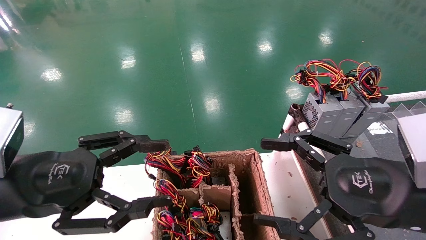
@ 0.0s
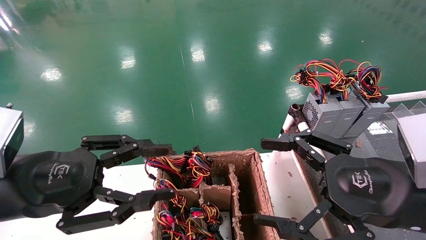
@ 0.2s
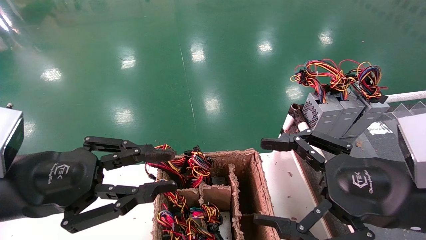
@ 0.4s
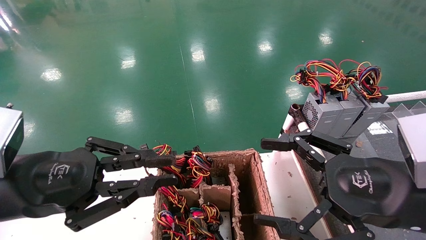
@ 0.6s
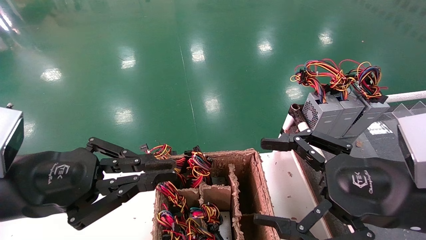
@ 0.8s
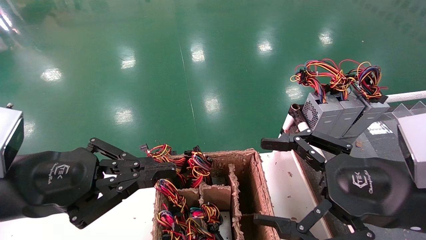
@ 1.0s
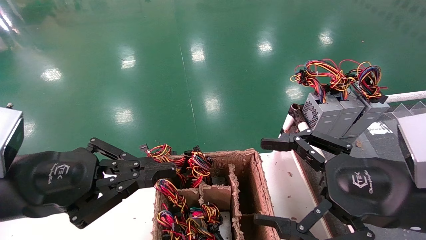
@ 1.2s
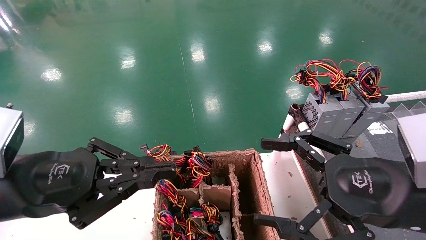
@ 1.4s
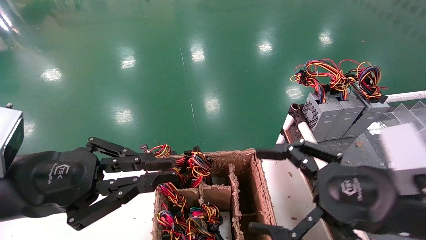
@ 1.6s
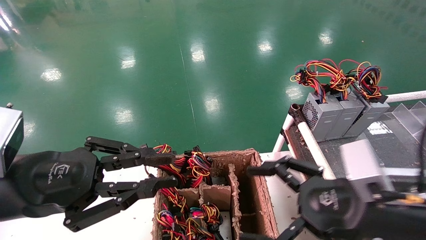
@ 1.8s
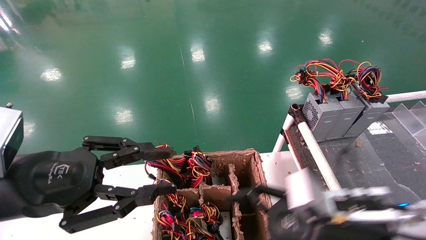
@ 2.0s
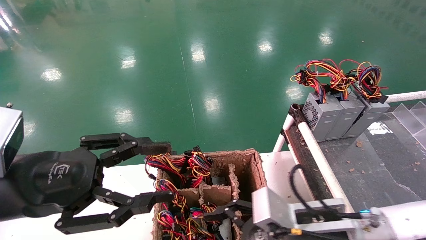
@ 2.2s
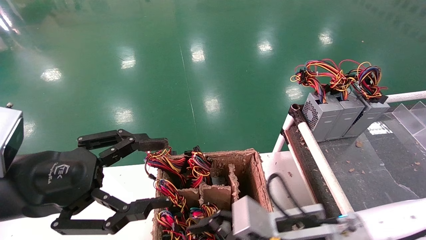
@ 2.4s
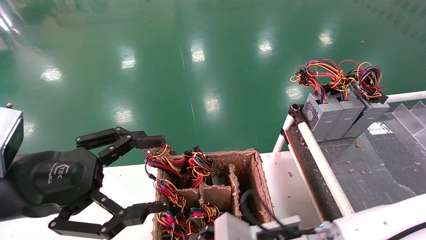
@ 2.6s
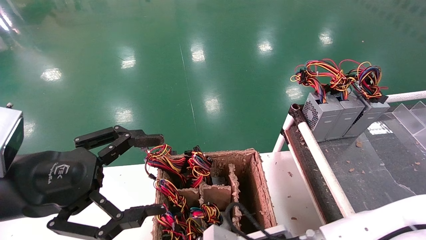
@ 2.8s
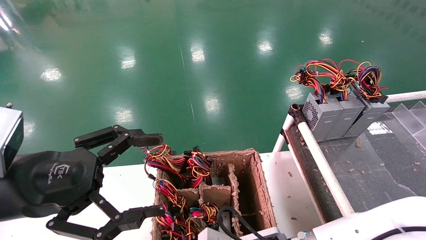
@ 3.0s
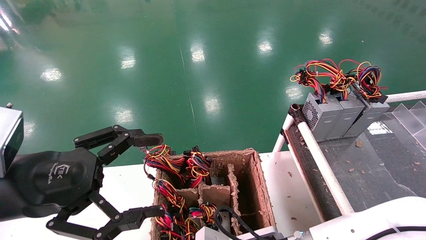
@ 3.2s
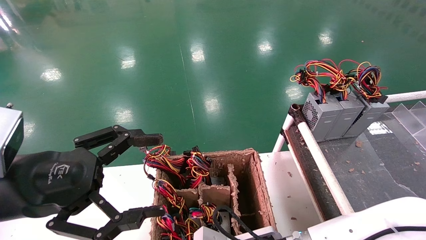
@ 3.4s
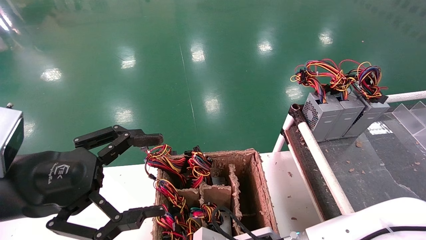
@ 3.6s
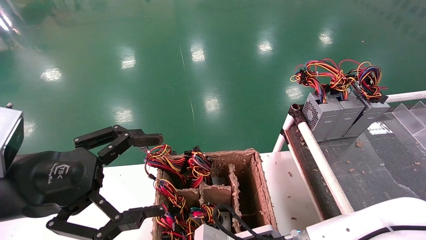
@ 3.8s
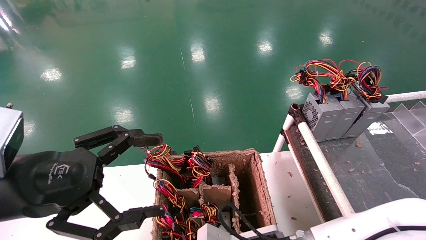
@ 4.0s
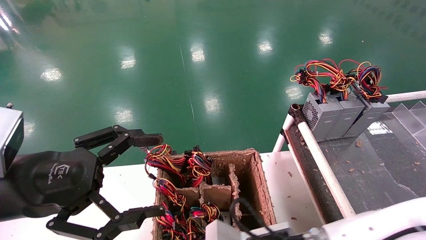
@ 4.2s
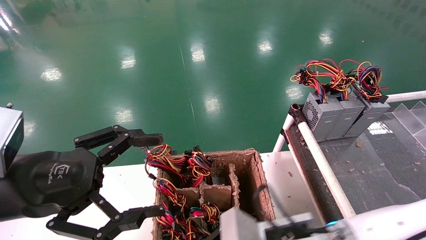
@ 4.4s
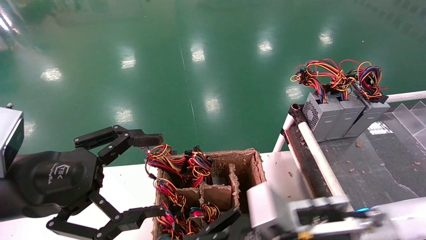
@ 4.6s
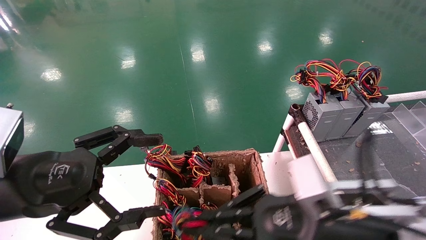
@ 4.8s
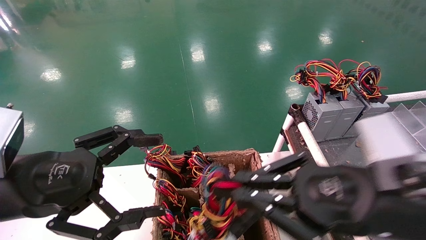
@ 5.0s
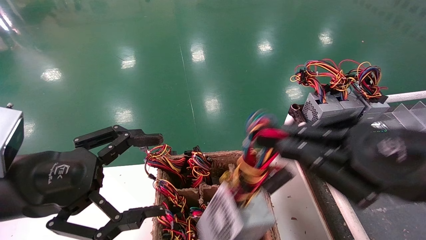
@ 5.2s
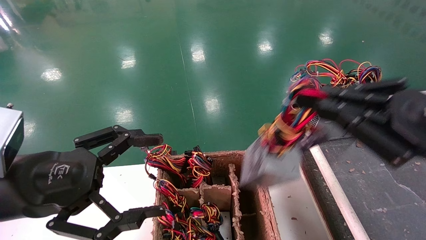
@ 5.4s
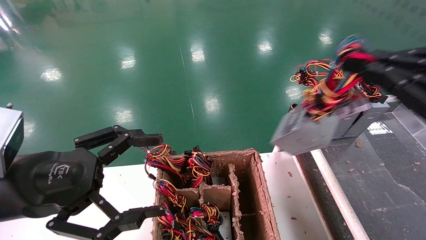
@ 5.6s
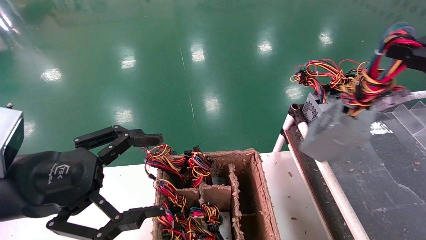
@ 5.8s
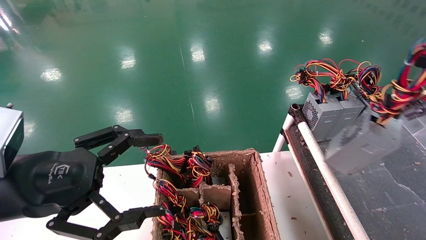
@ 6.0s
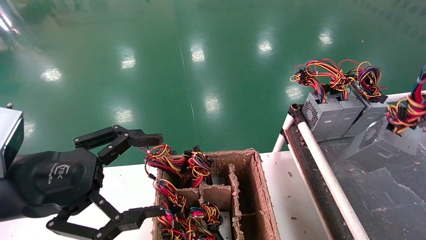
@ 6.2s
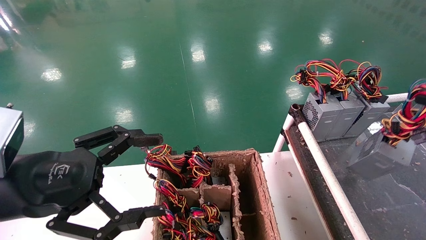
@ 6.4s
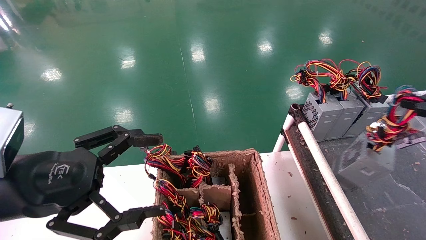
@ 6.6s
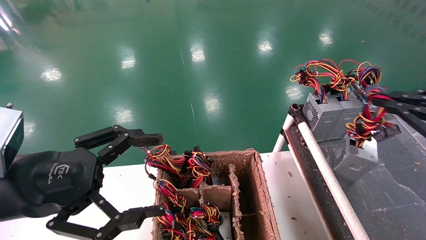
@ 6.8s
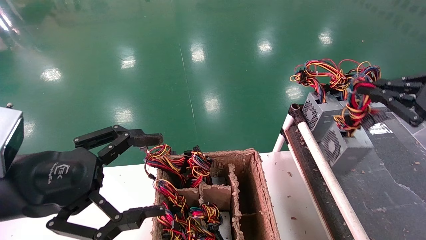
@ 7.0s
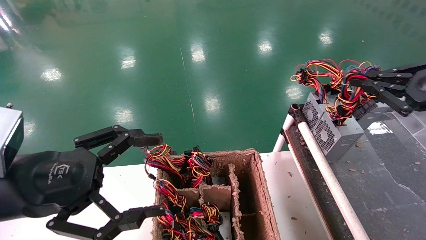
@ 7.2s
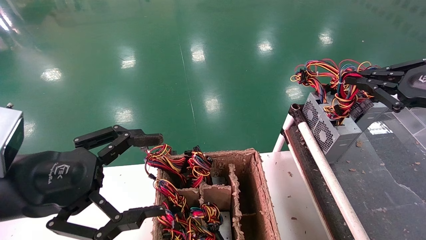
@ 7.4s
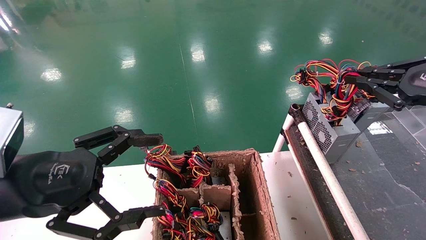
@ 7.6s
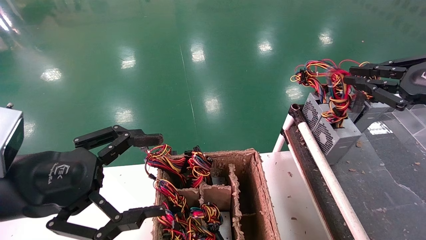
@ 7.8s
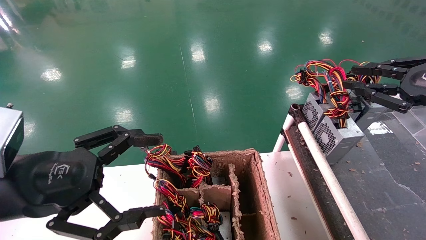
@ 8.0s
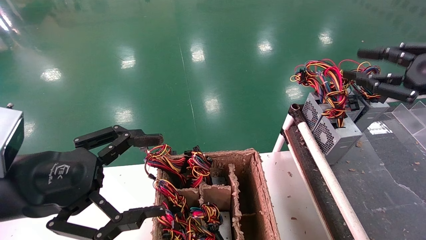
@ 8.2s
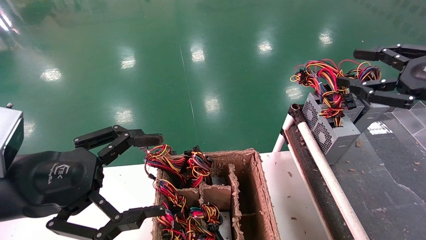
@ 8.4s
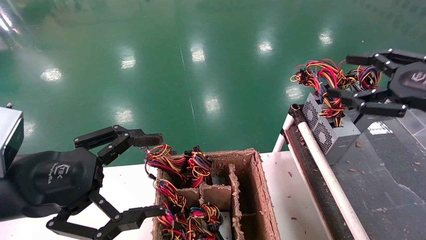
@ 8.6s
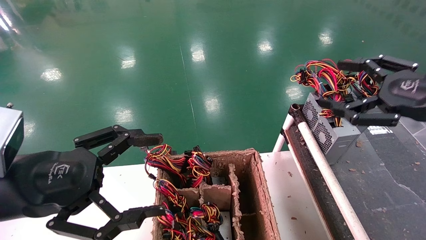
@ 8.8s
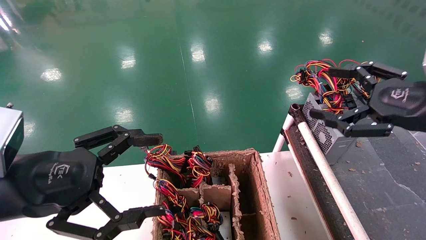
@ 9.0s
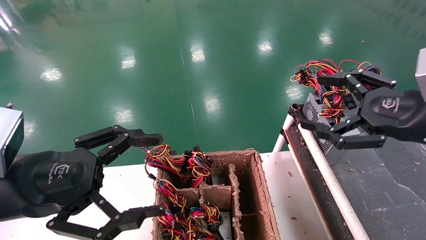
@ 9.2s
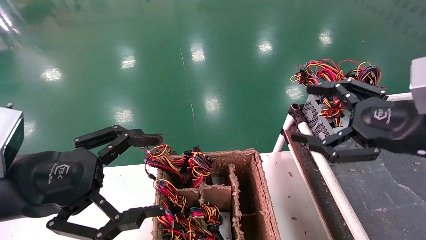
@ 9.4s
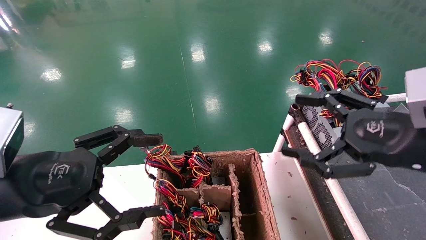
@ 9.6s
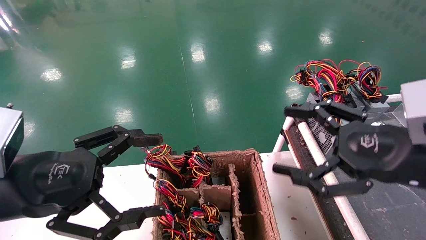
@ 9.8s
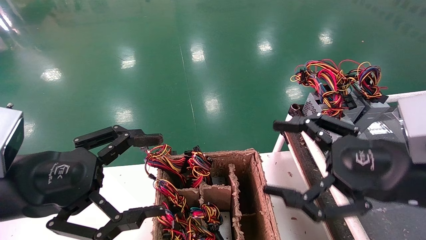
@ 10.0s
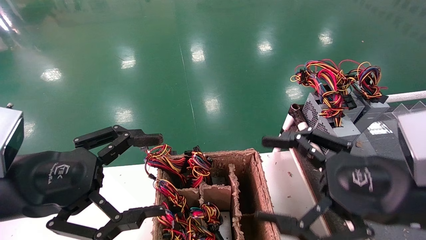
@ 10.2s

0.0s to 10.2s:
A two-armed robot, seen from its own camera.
Step, 1.8s to 4.0s: Grab and lift the power supply from the large box.
Step, 4.2s to 7.8s: Place the power supply on the operating table.
0.0s to 1.4s: The left gripper closes its fingers.
1.4s to 3.0s: The right gripper travels to the left and downward by some 20 cm. Meanwhile the left gripper opens.
3.0s to 4.4s: The right gripper travels upward by roughly 5 cm, and closes up.
4.4s to 5.8s: The right gripper goes about 35 cm to the right and upward.
5.8s to 7.2s: The right gripper moves forward, approximately 10 cm.
7.2s to 8.8s: The right gripper opens up.
8.8s to 10.2s: The right gripper moves to the left, backward and downward, about 15 cm.
